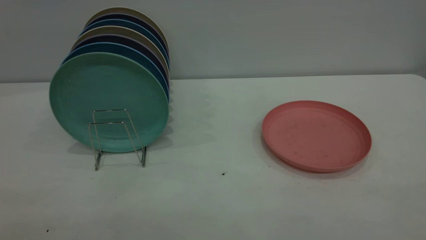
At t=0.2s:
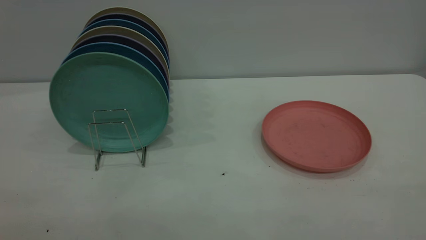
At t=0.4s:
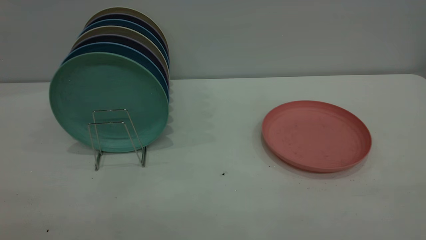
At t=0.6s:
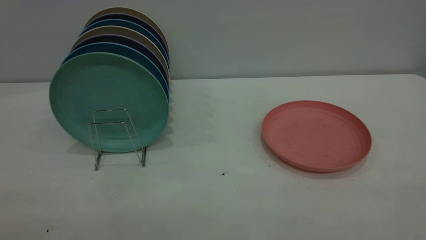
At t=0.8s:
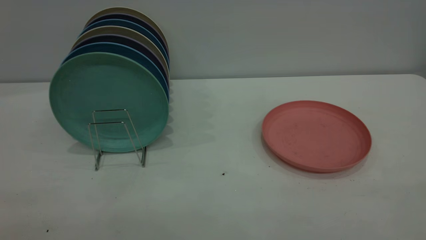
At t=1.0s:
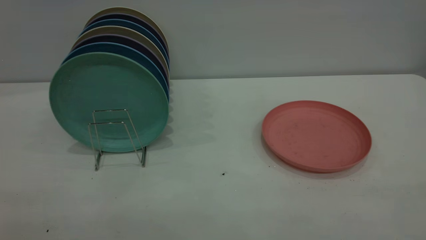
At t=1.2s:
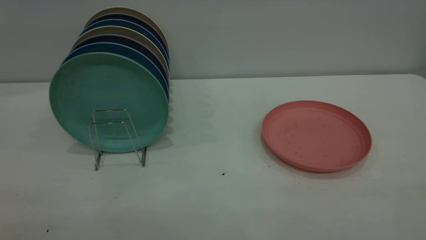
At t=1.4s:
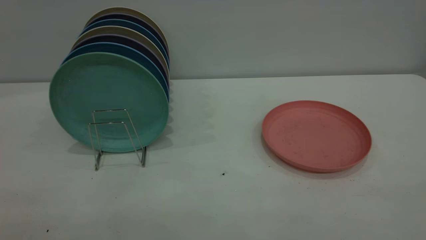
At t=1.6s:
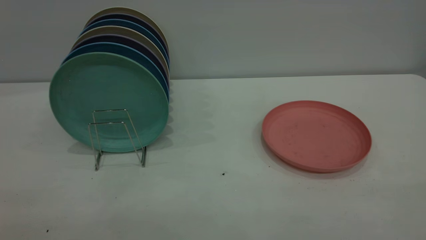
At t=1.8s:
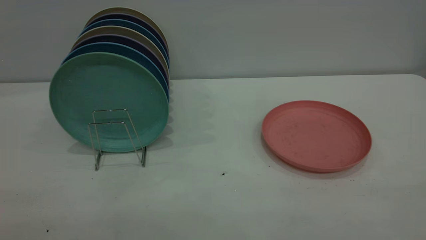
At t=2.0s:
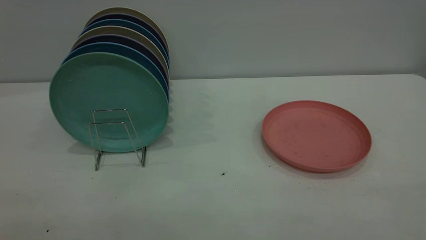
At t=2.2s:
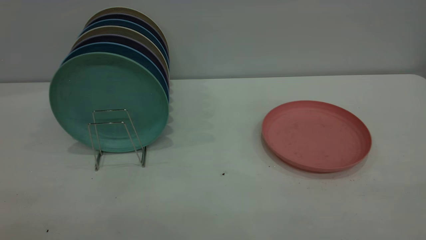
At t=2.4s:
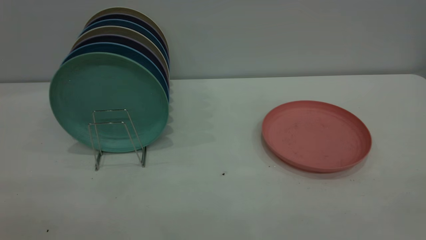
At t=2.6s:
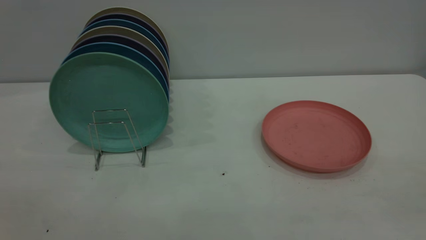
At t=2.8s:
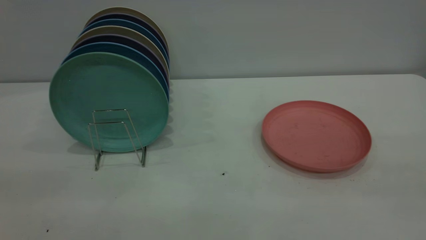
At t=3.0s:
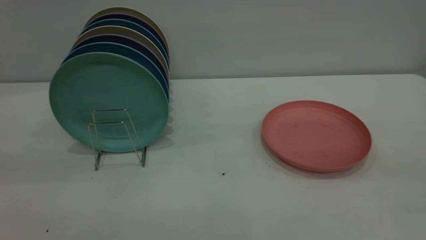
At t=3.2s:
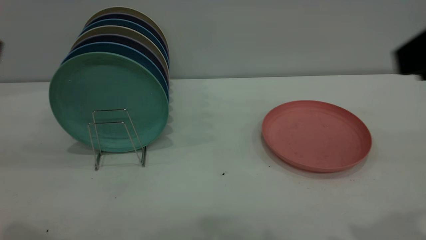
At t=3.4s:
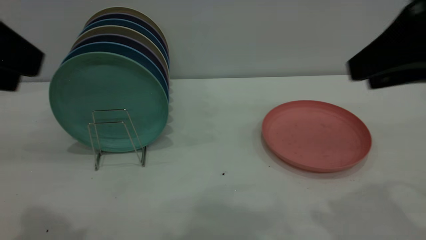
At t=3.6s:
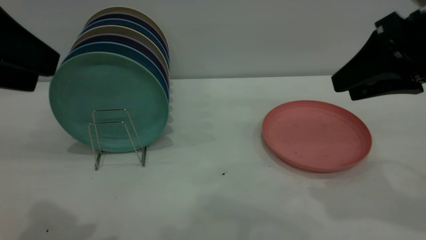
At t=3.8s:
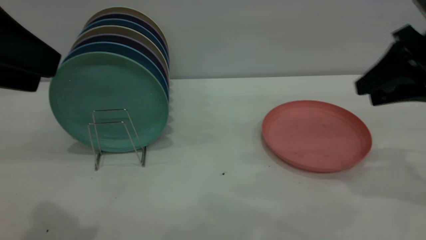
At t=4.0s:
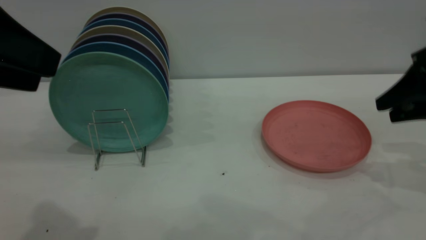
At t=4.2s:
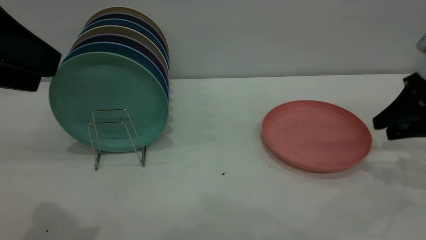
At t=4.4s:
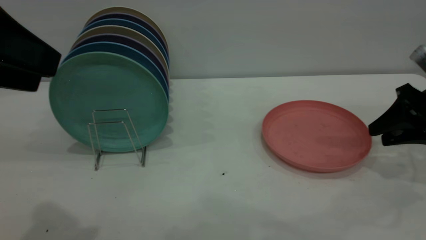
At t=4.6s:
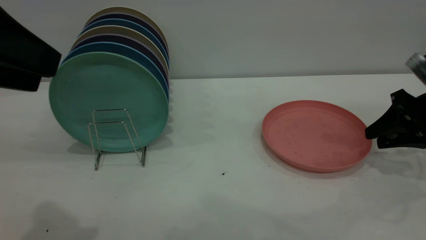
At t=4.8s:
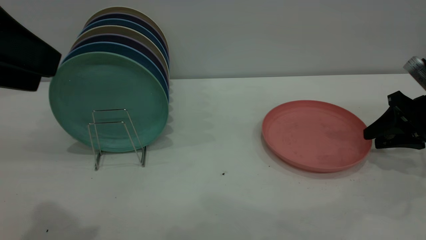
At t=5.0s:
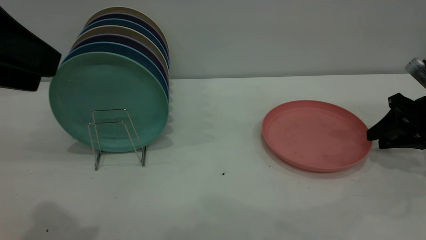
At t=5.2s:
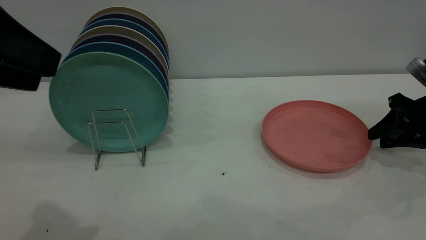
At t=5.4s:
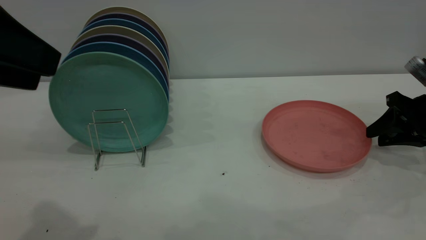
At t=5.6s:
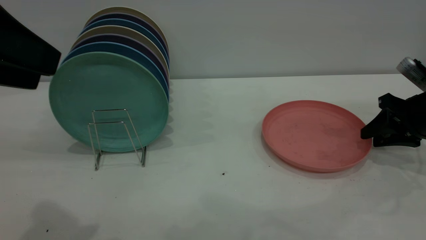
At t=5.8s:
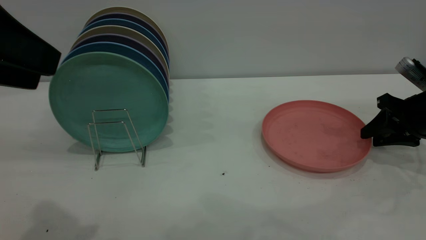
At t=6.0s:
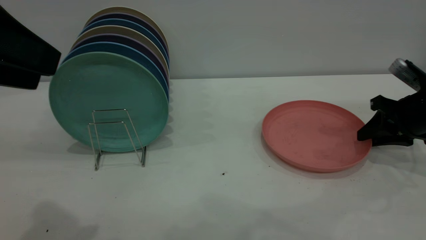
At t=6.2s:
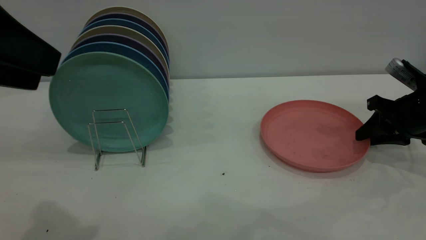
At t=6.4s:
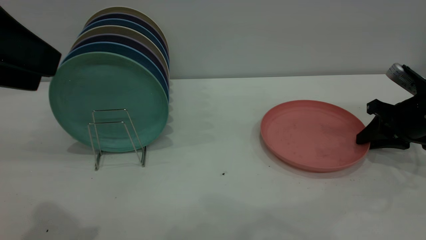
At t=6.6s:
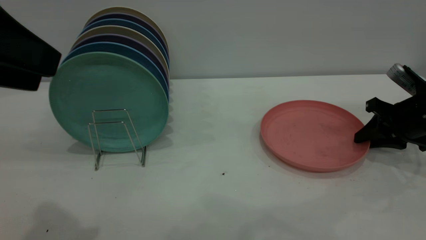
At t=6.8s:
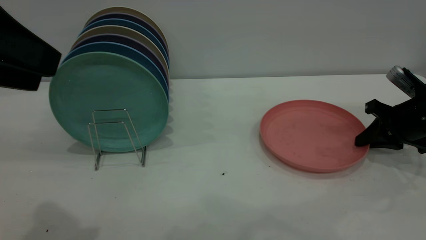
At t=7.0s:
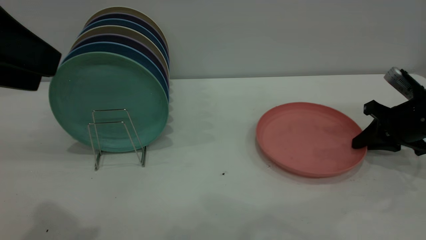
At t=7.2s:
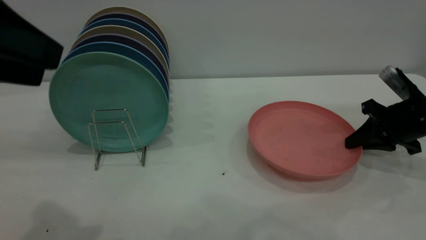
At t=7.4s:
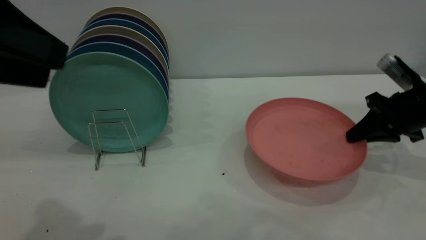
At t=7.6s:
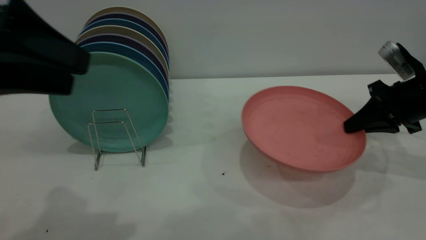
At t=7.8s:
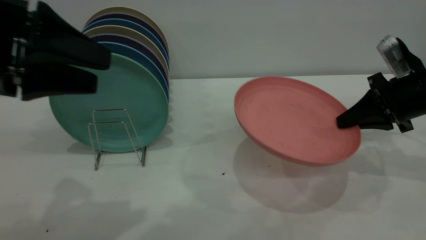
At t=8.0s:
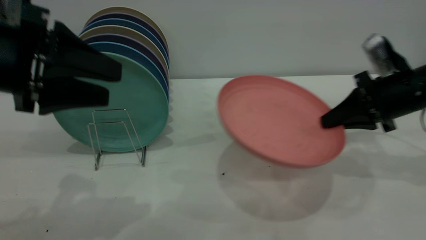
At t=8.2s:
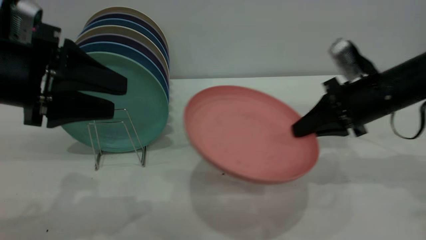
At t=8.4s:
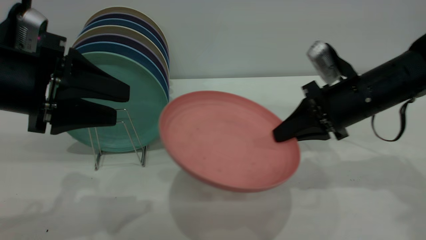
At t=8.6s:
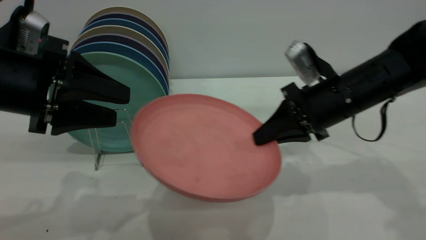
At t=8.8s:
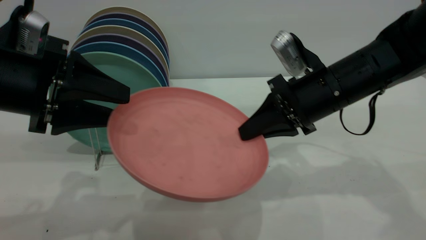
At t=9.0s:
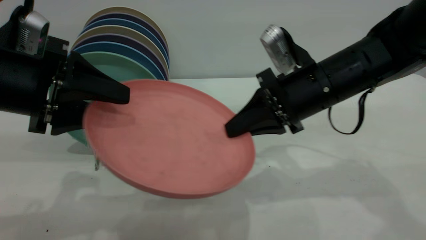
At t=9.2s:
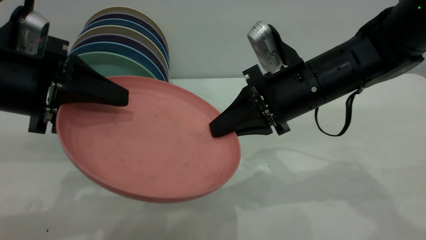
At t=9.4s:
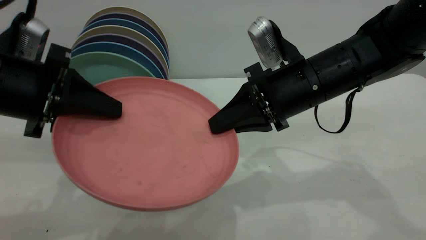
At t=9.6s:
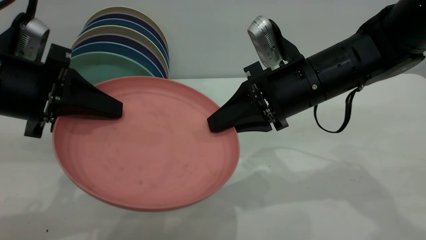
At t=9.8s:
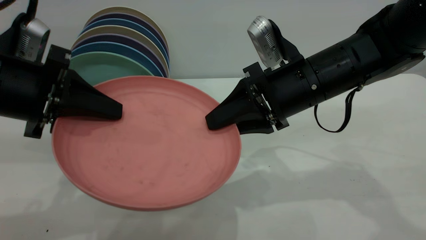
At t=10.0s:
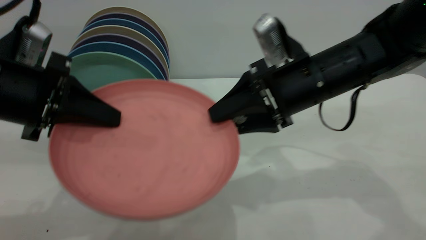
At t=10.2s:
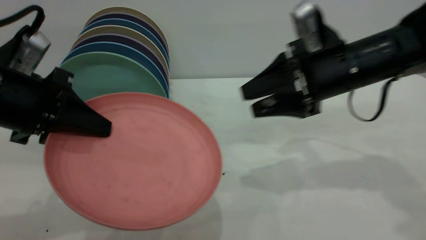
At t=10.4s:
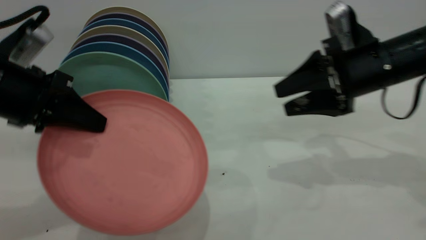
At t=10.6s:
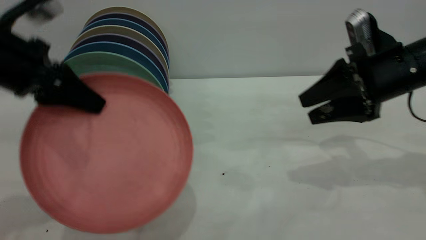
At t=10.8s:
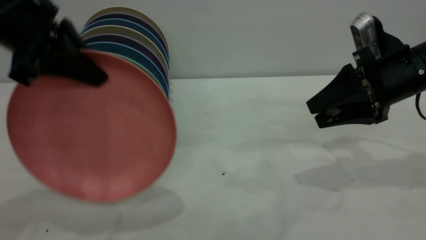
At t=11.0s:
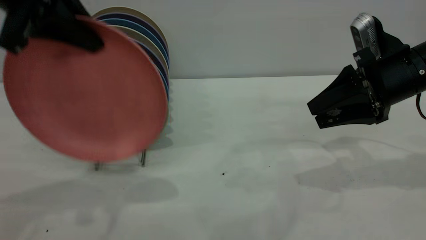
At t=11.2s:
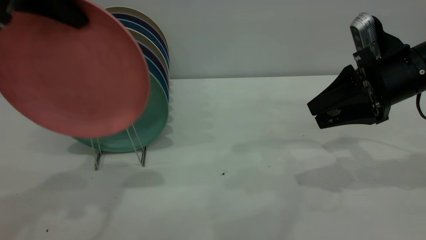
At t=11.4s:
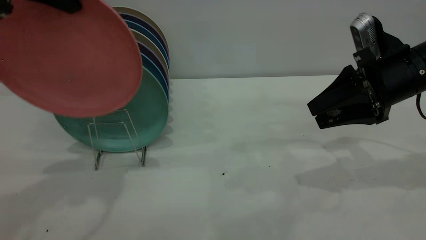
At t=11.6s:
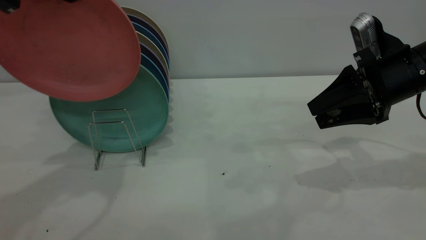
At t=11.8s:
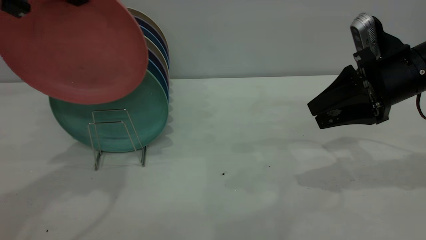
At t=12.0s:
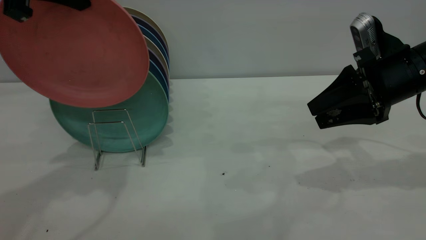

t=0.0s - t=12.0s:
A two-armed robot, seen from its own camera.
Task of the whole recording: the right gripper grasp the pink plate, the right gripper pass the pink plate to the left gripper, and the left gripper place the pink plate on the plate rack.
Step, t=0.0s - t=7.6s: Pick up the plate with the right gripper.
Step, t=7.8s - t=11.6s: Pass the plate from the right gripper to the left gripper.
t=0.0s - t=1.6s: Both grippers stay put.
t=3.0s - t=4.4s: The right gripper is displaced downward, forward and to the right by some 35 cm, while the left gripper moves forward, some 5 cm.
t=4.4s - t=6.0s: There are only small adjustments of the grippers.
t=6.0s - t=7.6s: The right gripper closes up.
t=7.6s - t=9.0s: The right gripper heads to the left, covering about 20 cm. Meanwhile the left gripper travels downward by about 5 cm.
t=9.0s - t=10.4s: The right gripper goes about 10 cm to the right, and opens its fingers; the left gripper closes its fingers.
t=10.4s - t=12.0s: The left gripper shifts approximately 15 cm upward and forward.

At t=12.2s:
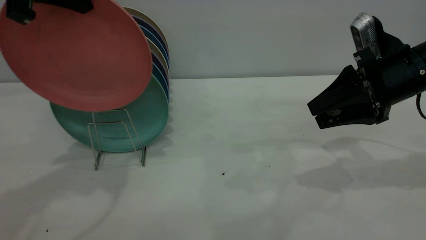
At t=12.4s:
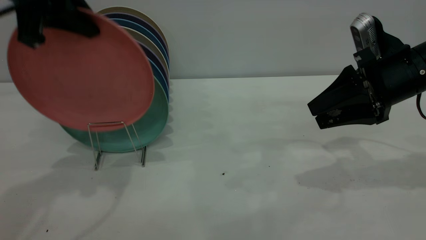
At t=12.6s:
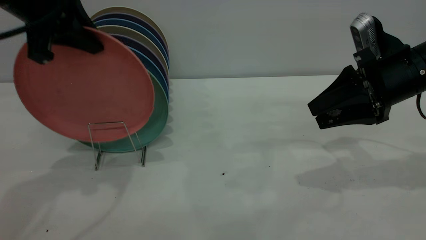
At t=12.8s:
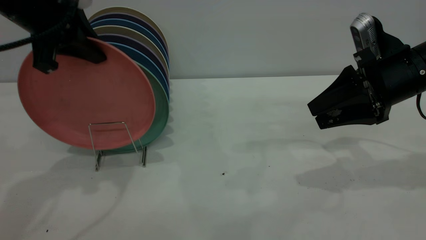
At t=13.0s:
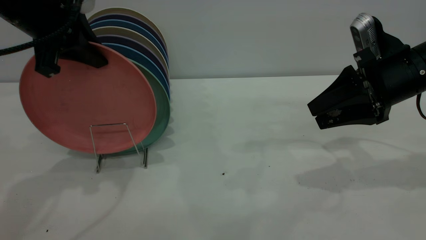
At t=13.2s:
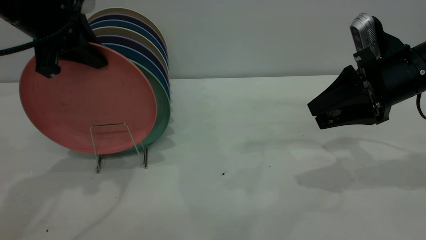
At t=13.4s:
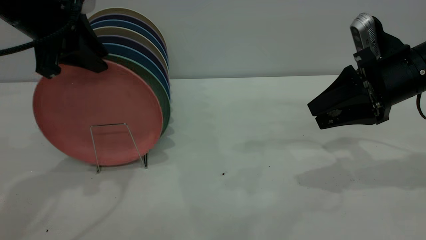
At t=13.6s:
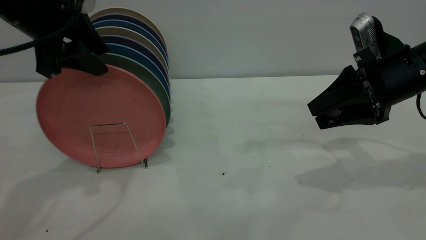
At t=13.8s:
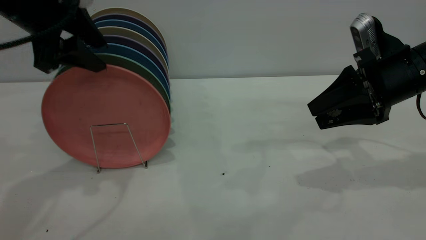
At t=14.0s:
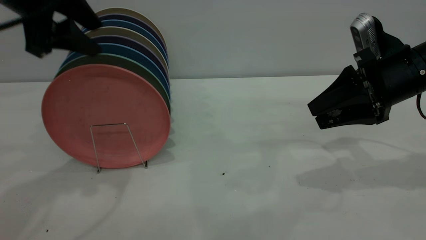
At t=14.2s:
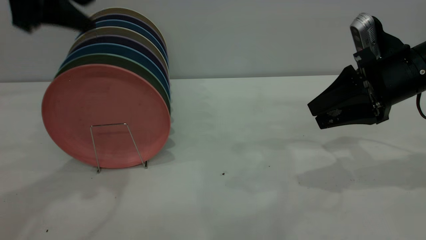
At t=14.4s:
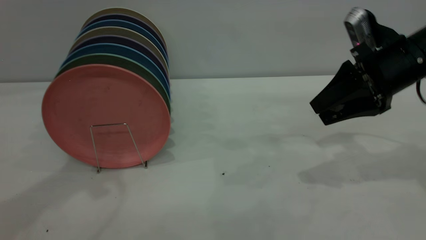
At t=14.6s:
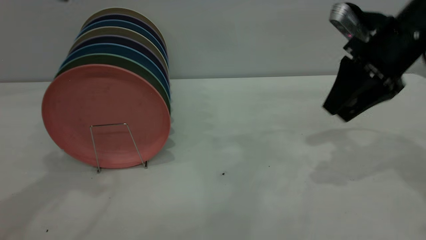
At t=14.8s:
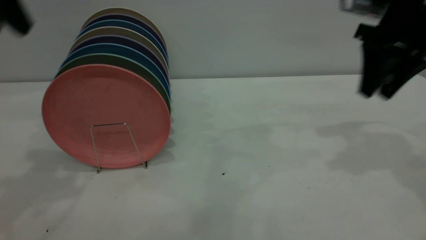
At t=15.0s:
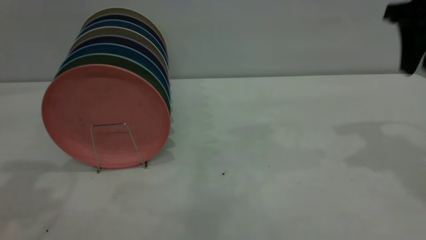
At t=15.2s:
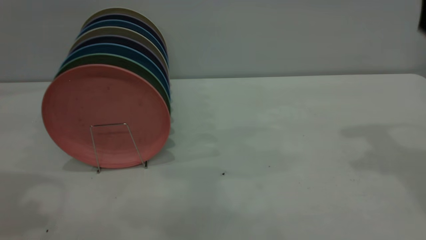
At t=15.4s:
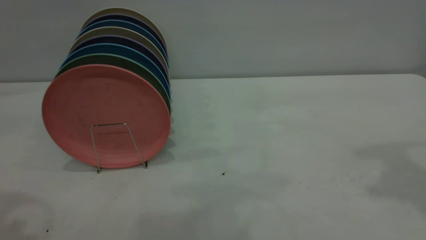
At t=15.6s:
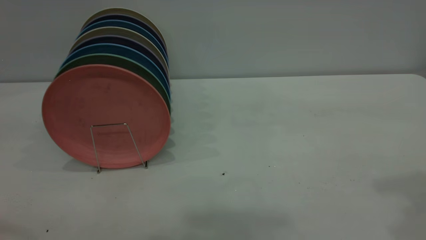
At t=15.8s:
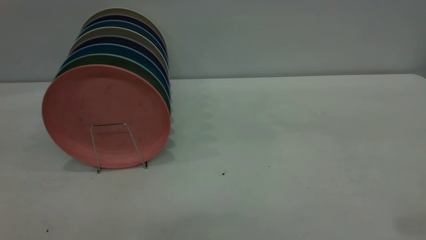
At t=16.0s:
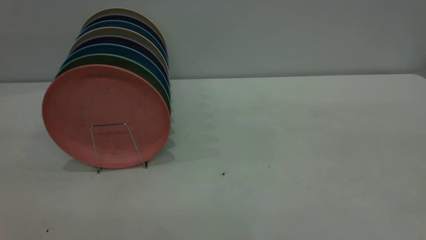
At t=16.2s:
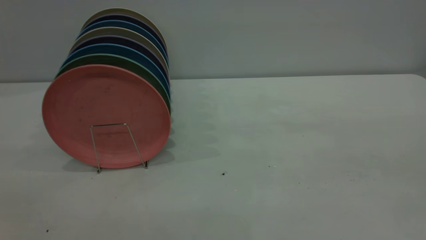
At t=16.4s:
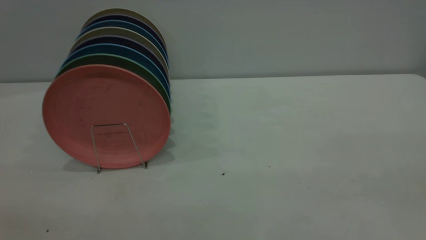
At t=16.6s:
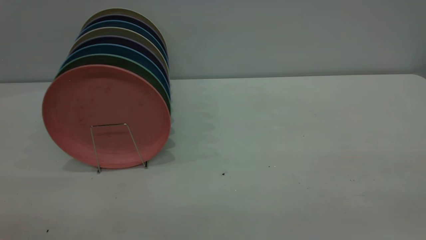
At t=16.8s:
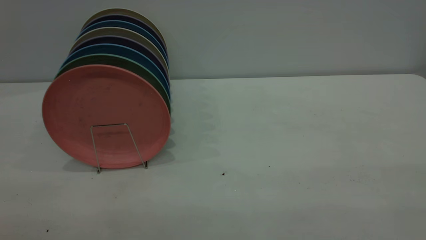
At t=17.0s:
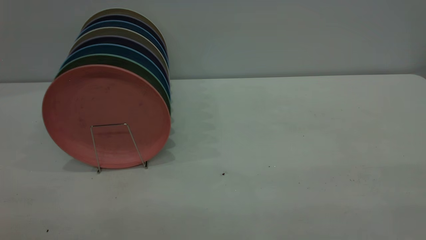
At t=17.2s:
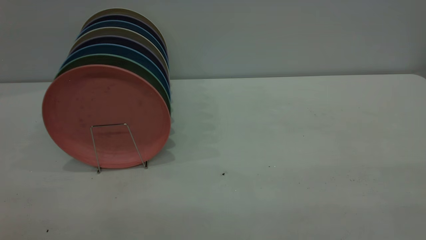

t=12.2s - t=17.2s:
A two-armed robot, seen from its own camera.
Task of the whole recording: the right gripper grasp the pink plate, the right gripper pass the pink plate to the left gripper, and the left gripper place the pink plate on the plate rack.
Step, t=12.2s - t=14.2s: Place the plate on the shelf.
t=12.2s - t=13.8s: The left gripper heads downward, covering about 5 cm, and opens.
t=13.8s - t=15.6s: The right gripper shifts some 30 cm upward and backward, while the left gripper shifts approximately 25 cm backward and upward.
